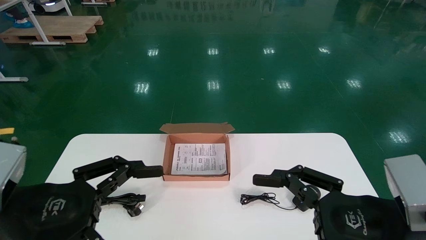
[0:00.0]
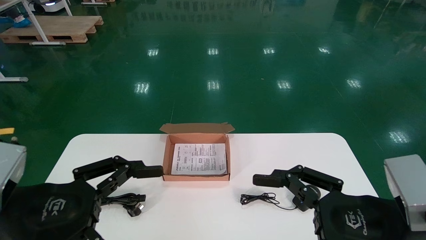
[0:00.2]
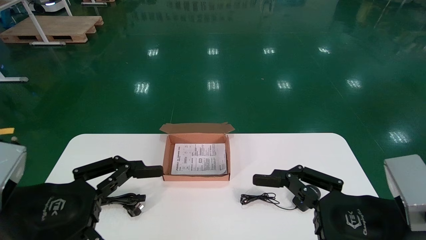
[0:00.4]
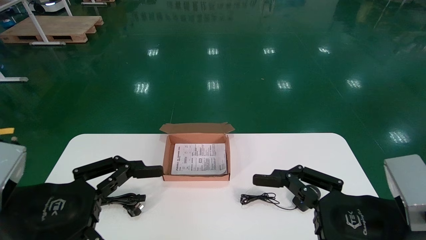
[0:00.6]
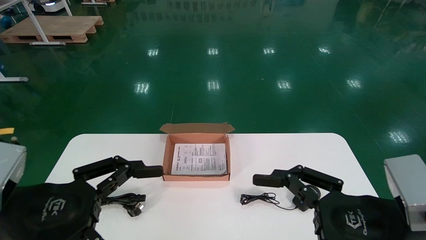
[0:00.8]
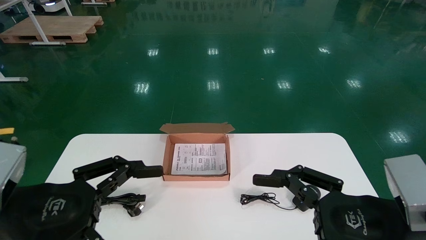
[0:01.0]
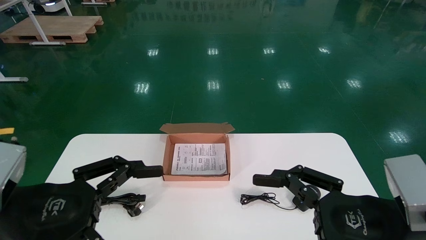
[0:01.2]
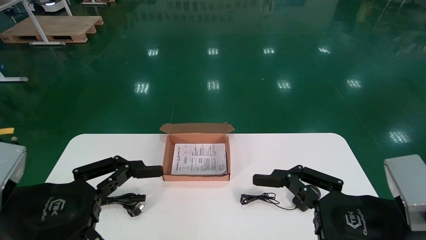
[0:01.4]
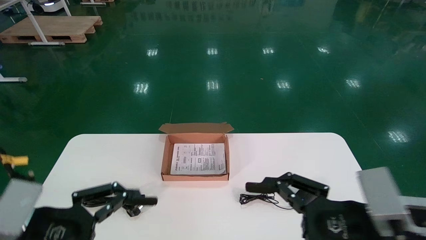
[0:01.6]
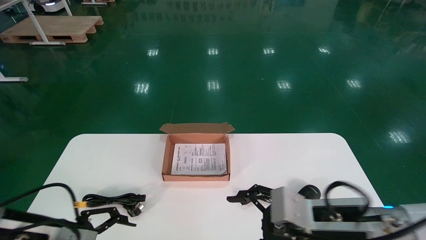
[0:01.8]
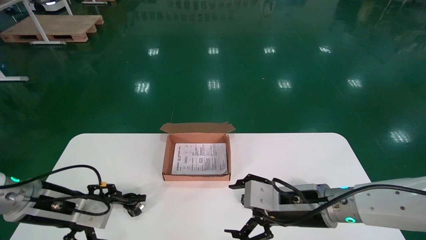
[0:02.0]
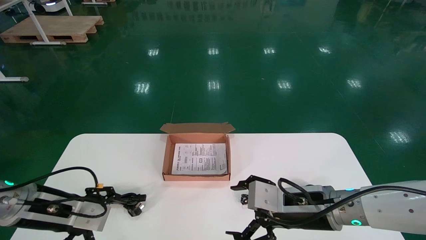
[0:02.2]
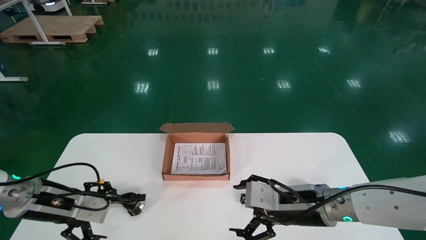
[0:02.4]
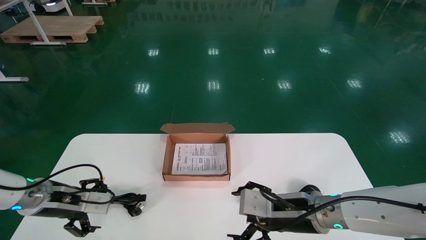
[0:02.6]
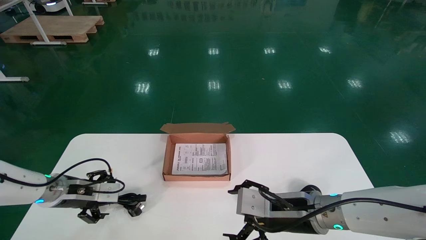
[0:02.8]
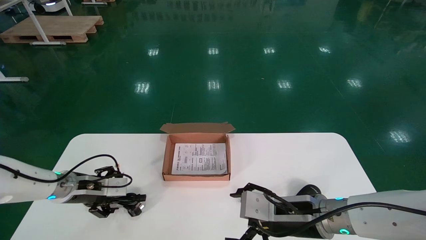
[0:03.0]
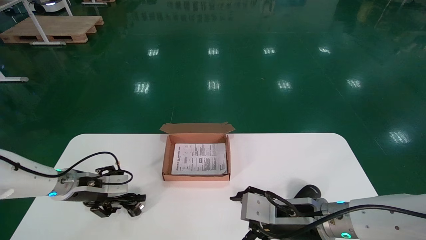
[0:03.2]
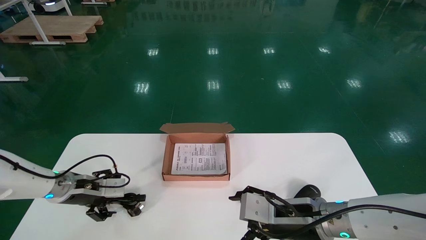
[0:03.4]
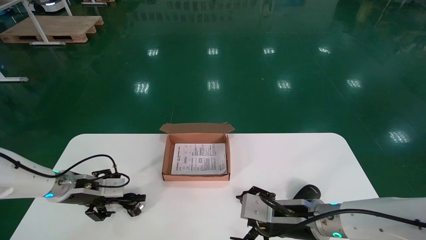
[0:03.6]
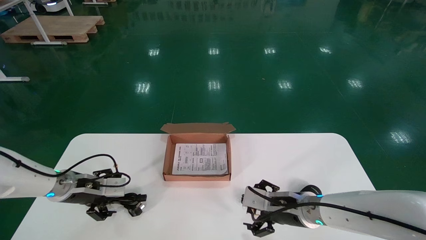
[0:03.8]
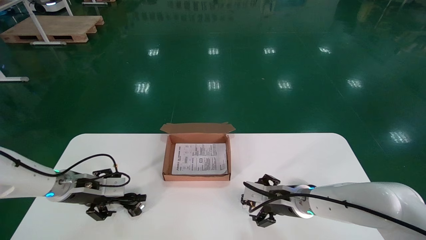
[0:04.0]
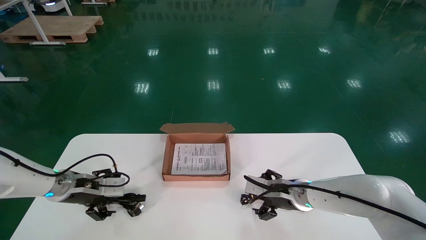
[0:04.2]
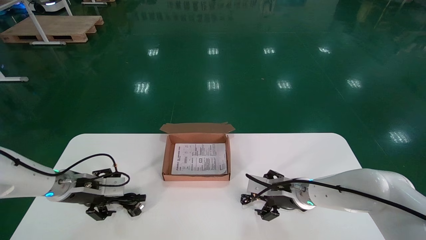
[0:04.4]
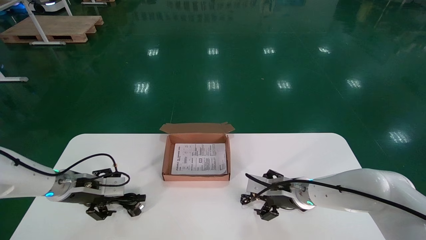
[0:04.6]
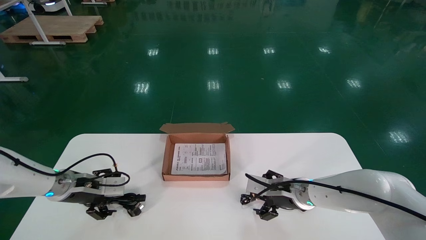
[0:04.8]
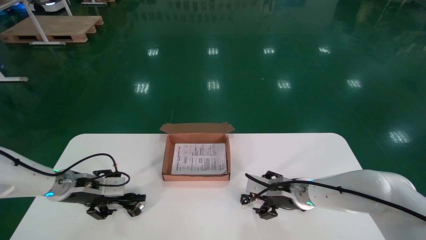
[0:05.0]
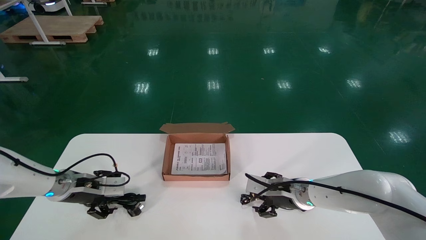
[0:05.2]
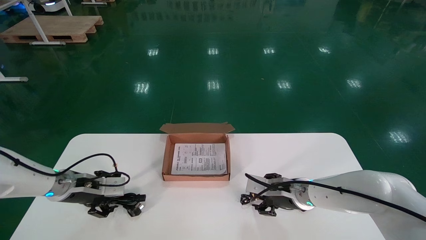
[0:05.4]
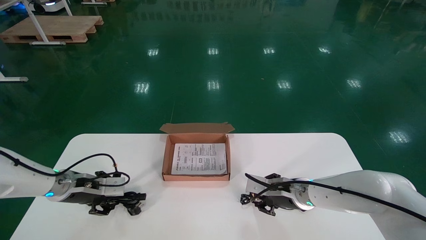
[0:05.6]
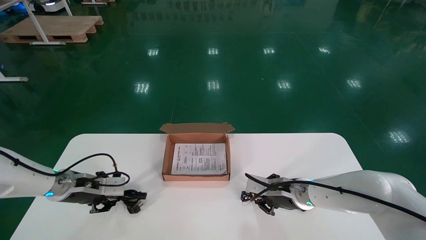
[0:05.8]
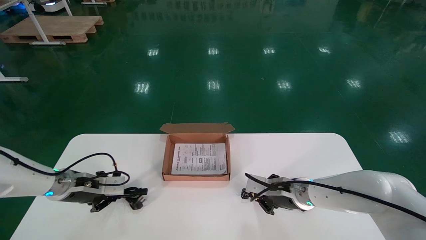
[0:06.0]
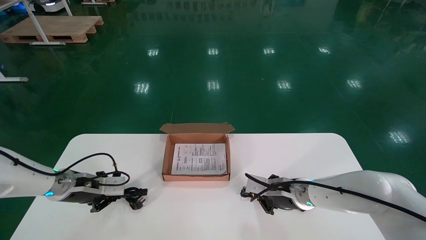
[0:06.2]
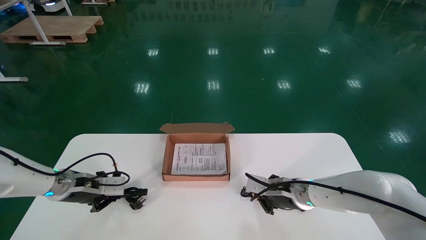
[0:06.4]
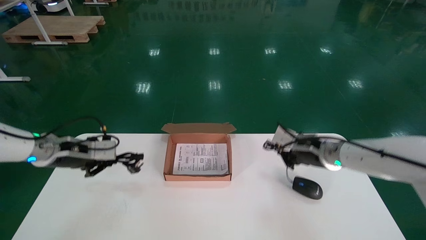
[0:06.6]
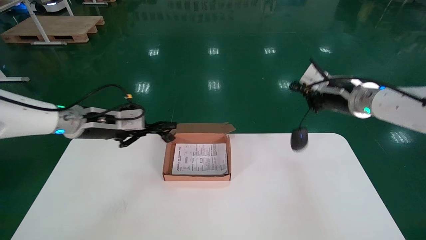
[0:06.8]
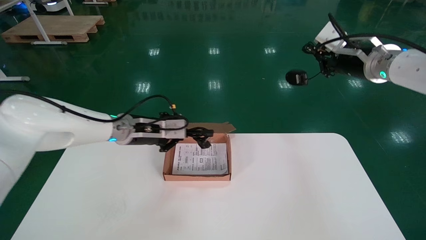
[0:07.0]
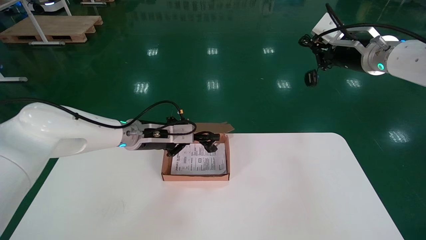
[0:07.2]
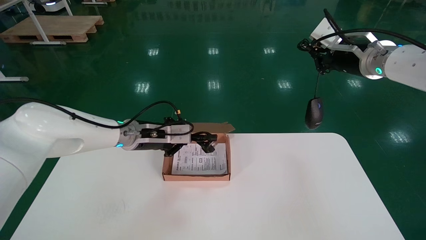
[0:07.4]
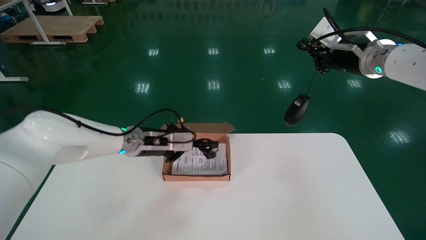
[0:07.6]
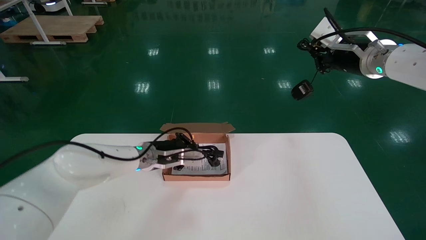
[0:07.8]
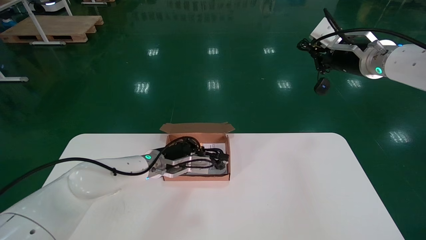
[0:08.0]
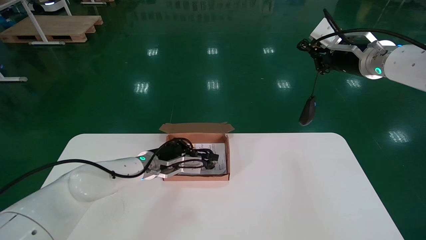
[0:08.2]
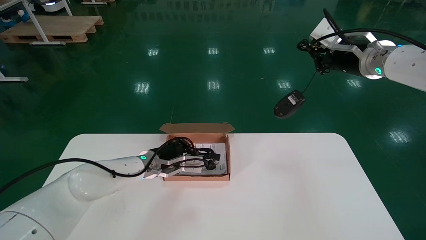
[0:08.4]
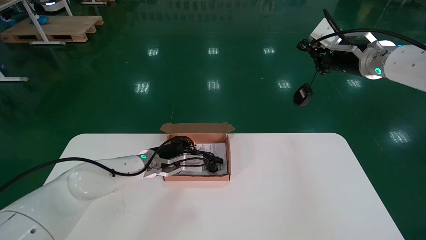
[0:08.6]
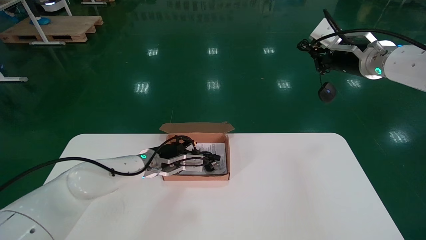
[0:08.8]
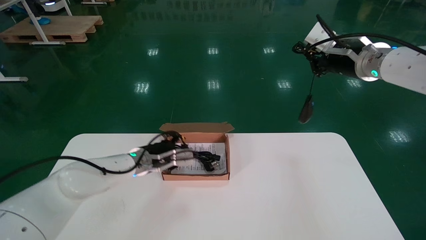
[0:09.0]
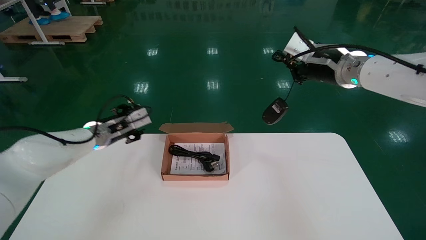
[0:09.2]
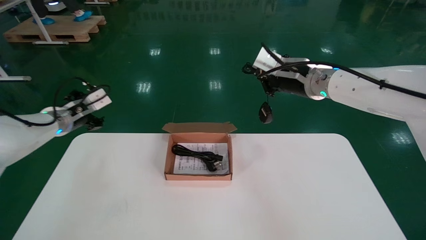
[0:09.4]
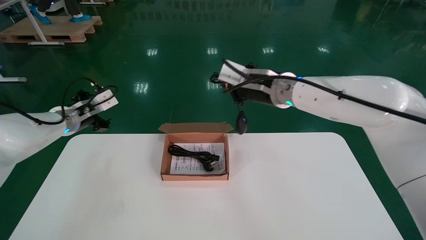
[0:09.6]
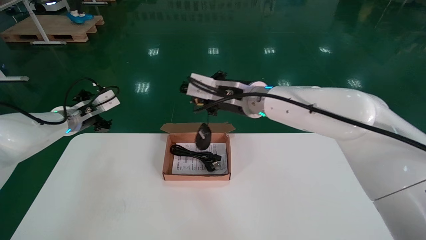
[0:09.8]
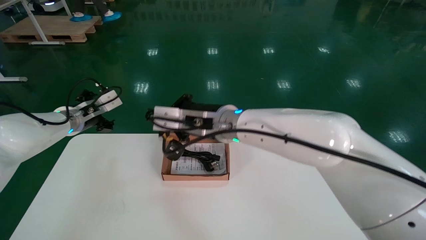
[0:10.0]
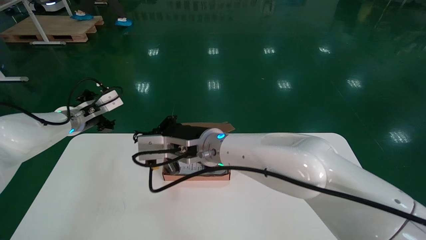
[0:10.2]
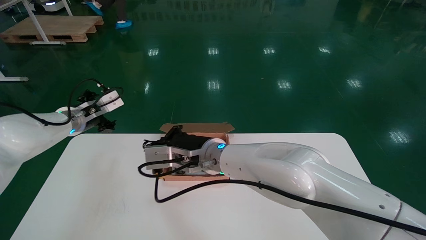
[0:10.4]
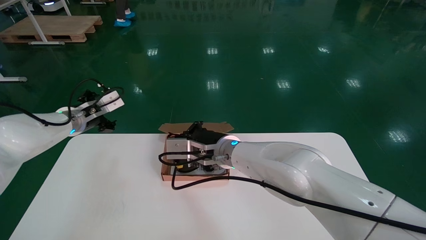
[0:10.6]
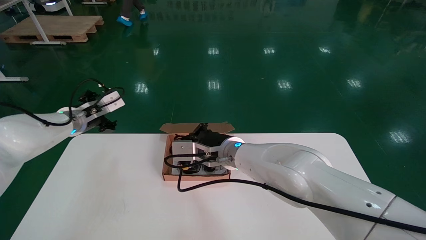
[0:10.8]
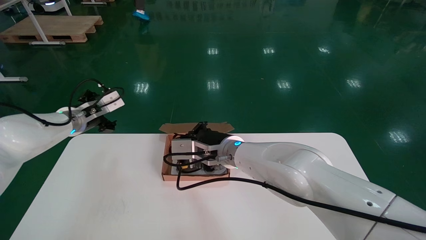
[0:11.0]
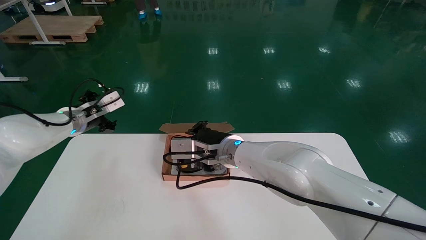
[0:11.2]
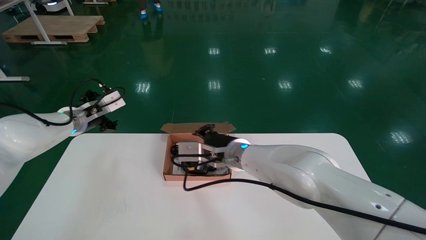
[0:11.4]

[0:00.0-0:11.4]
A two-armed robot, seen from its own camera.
Step, 0:01.8 to 0:06.0: Simultaneously pick up the mouse and power cord from the accessory packaging area.
Step, 0:06.2 to 0:11.2: Place the mouse and power cord into the box.
0:01.4 to 0:02.8: The right gripper travels forward, to the left and downward by roughly 15 cm, while the left gripper moves forward, some 20 cm.
0:02.8 to 0:04.2: The right gripper goes roughly 10 cm forward.
0:04.2 to 0:05.6: The right gripper closes, while the left gripper closes up.
0:05.6 to 0:07.2: The left gripper travels to the right and upward by some 20 cm, and closes; the right gripper shifts approximately 30 cm upward, and closes up.
0:07.2 to 0:08.6: The left gripper heads downward, covering some 10 cm.
0:08.6 to 0:10.0: The left gripper is displaced to the left and upward by some 20 cm, and opens its fingers. The right gripper shifts roughly 30 cm to the left and downward.
0:10.0 to 0:11.4: The right gripper moves downward, approximately 10 cm.

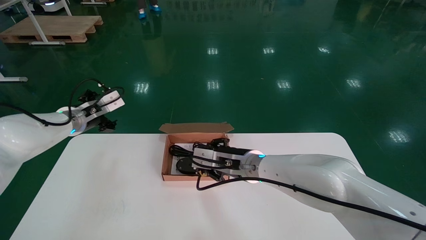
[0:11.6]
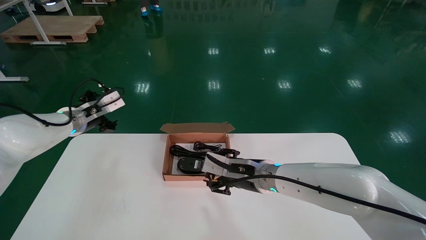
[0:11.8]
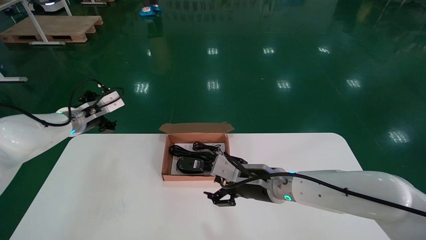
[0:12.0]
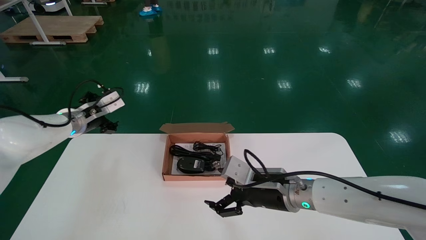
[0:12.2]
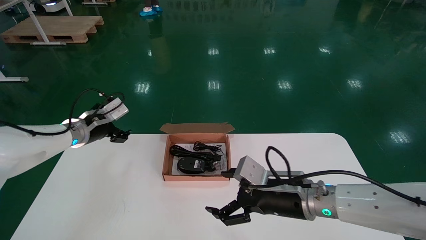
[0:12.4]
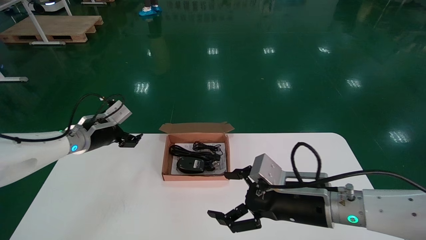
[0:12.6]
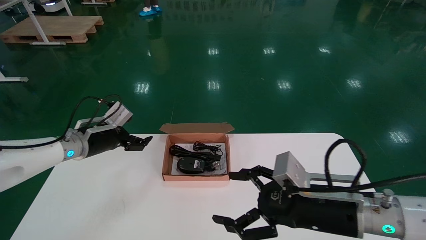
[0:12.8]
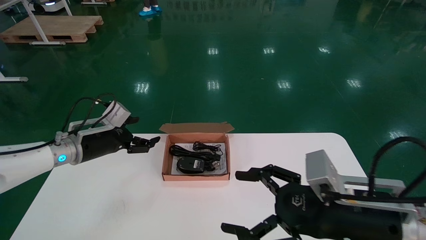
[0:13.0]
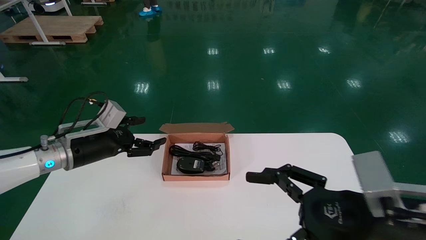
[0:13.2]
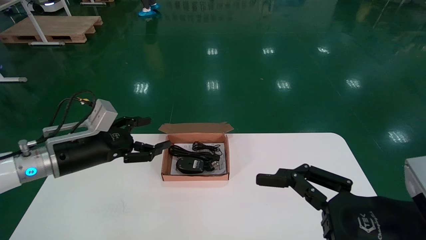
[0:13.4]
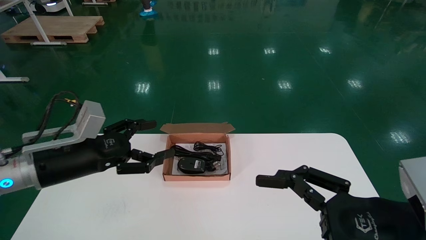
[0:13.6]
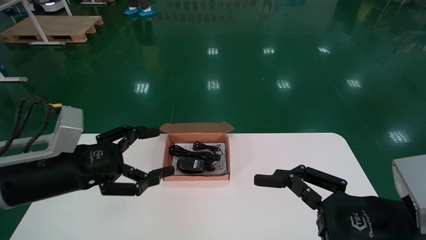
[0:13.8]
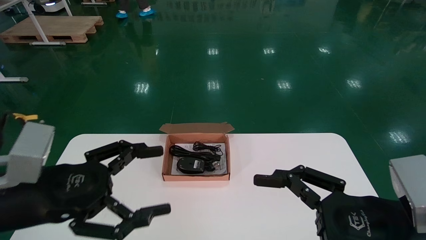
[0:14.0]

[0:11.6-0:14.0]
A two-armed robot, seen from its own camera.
0:11.6 to 0:12.8: The right gripper goes about 20 cm backward and to the right, and opens up. Meanwhile the left gripper shifts by roughly 5 cm.
0:12.8 to 0:14.0: The right gripper shifts roughly 10 cm backward and to the right. The left gripper moves backward, roughly 25 cm.
